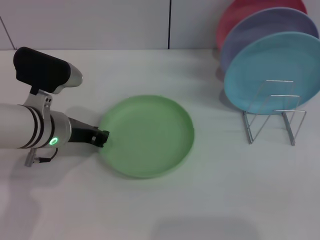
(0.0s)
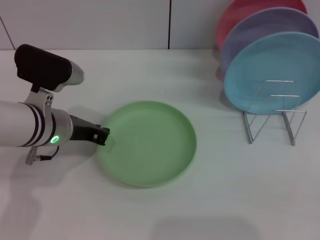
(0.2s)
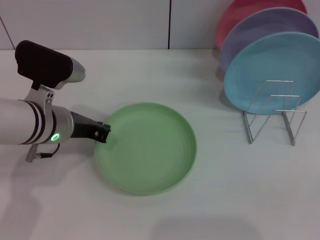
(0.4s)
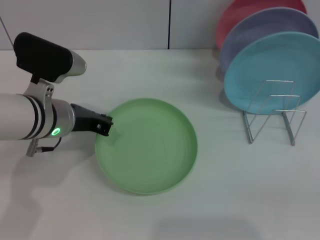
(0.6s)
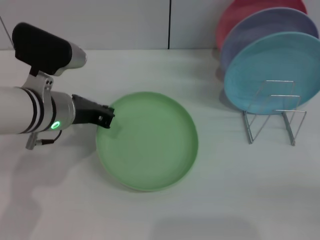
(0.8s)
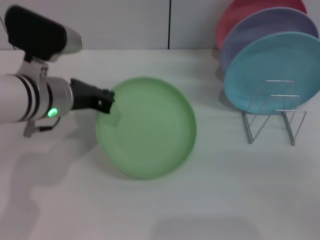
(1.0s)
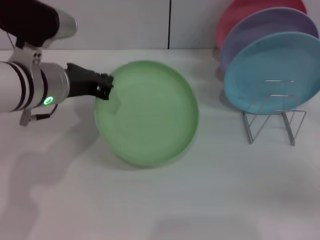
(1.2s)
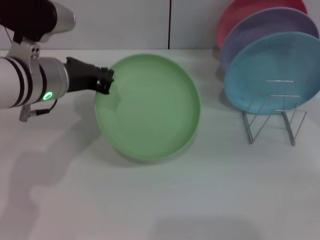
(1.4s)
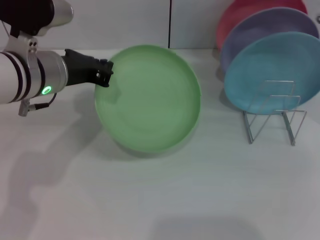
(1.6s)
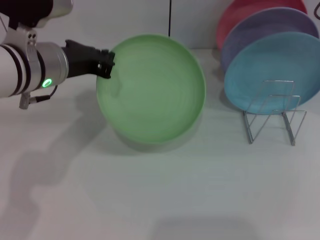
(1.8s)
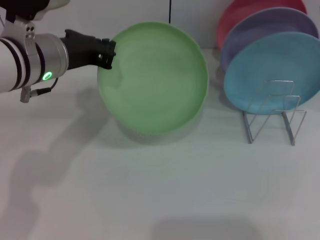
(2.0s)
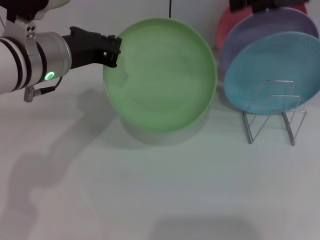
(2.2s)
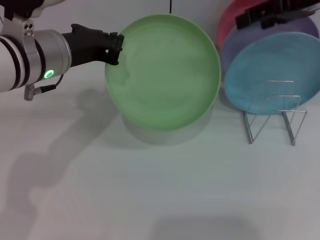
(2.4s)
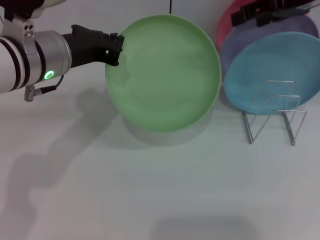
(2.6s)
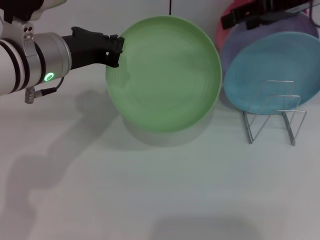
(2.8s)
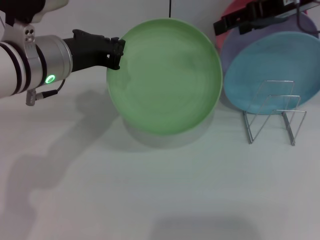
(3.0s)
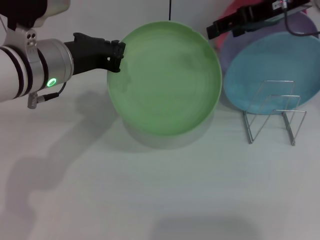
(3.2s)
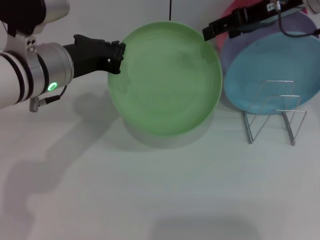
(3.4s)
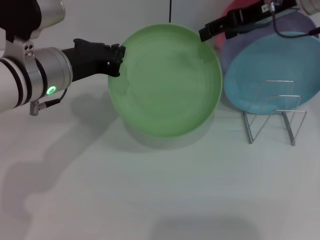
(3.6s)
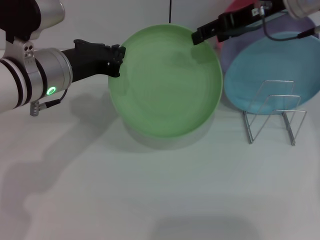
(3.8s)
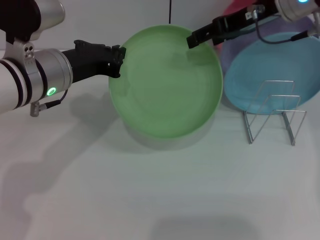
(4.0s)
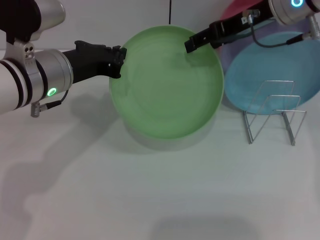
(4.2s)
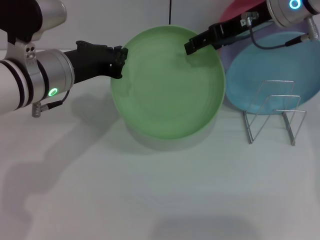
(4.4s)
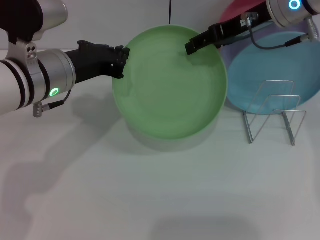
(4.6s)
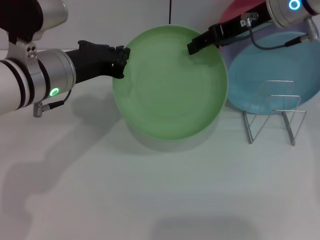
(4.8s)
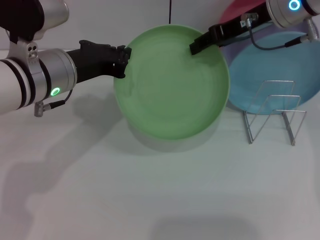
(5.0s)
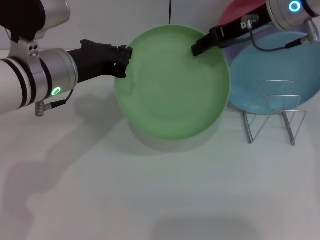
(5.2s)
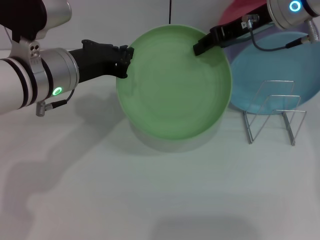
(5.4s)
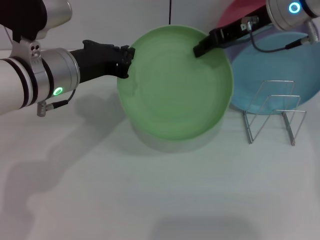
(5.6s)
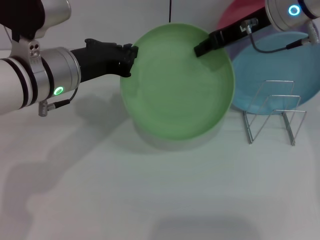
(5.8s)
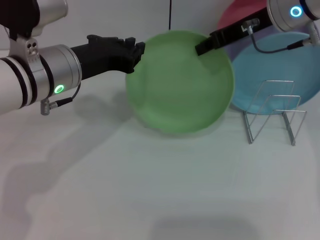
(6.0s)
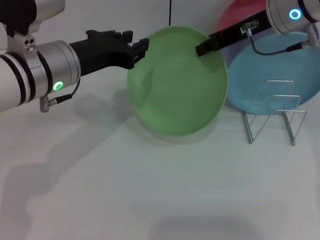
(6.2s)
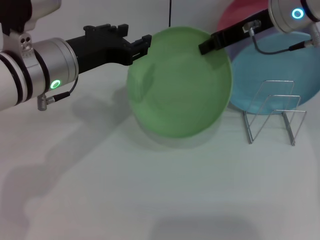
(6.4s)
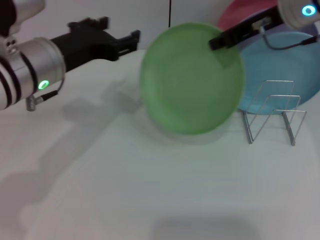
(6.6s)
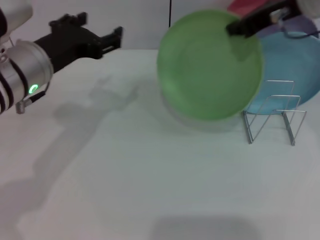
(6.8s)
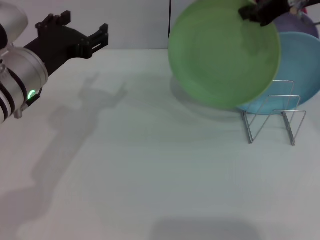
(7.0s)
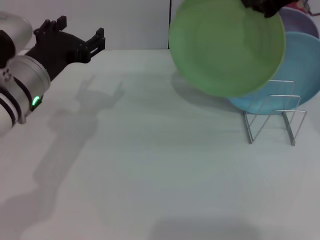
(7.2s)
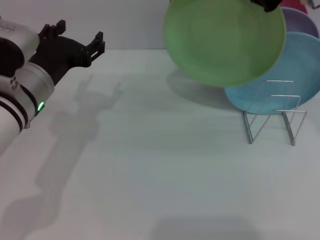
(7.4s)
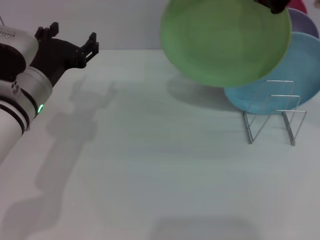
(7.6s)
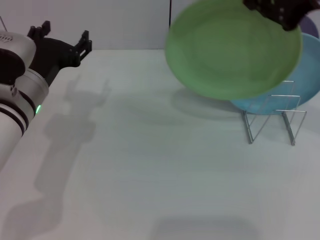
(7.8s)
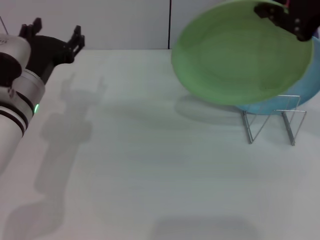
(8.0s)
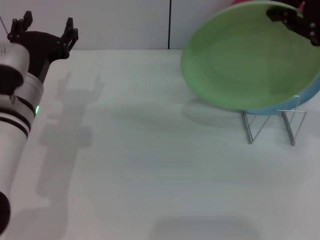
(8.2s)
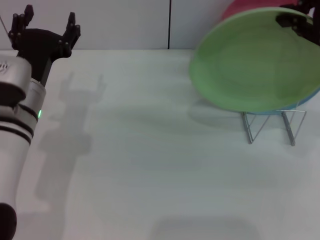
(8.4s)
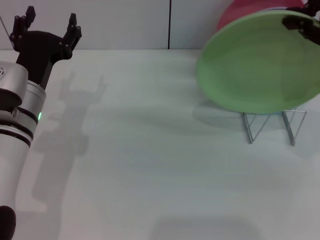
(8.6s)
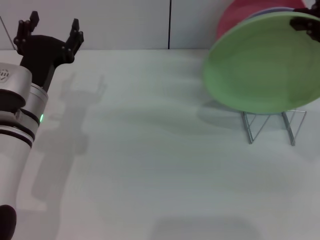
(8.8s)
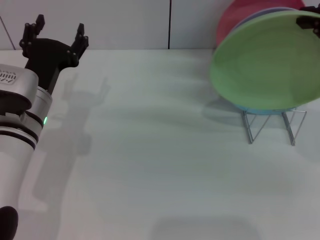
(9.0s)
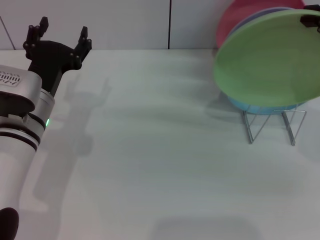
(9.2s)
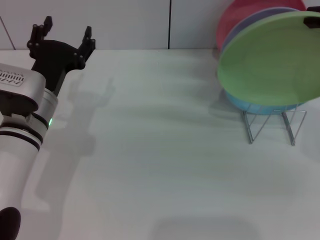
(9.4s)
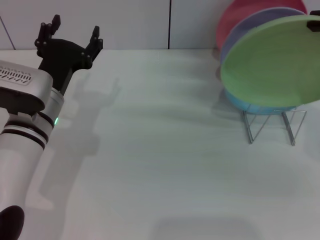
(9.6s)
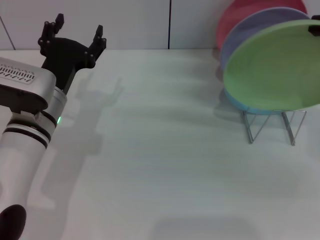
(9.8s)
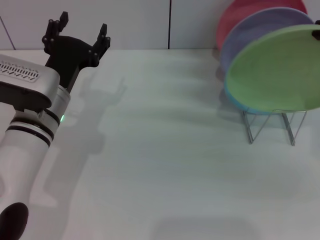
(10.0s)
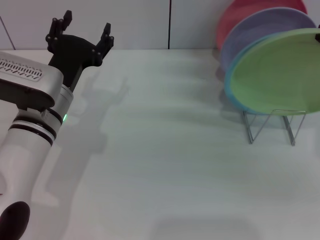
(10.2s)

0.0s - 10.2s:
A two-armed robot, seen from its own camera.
Task of the whole recording: Grip the plate with one hand, pass it to the other, then set it on the shelf.
Step, 1.4s - 6.2s: Pass the plate from the left gripper to the right gripper.
0.0s - 1.4s: The left gripper heads upward, covering approximately 10 cm, and closes up. The right gripper travels forward and upward by some 25 cm.
1.4s - 3.0s: The right gripper travels upward, to the left and forward by about 15 cm.
3.0s - 4.4s: The right gripper ends up roughly 5 cm from where it was.
4.4s - 5.8s: The right gripper closes its fingers.
5.8s - 7.2s: The left gripper opens up; the right gripper shifts some 5 cm upward.
7.2s - 8.8s: The right gripper moves backward and to the right, about 10 cm, while the left gripper shifts roughly 5 cm downward.
8.8s - 10.2s: The right gripper shifts by some 5 cm.

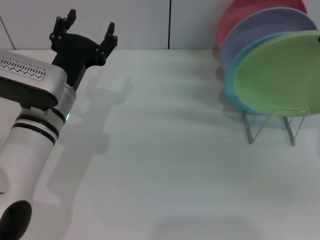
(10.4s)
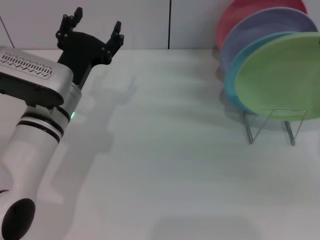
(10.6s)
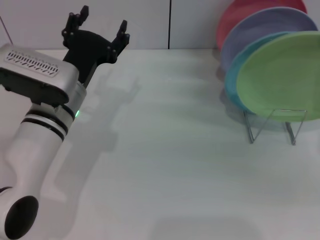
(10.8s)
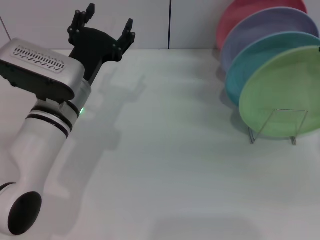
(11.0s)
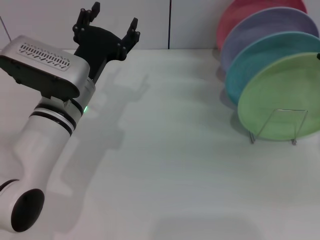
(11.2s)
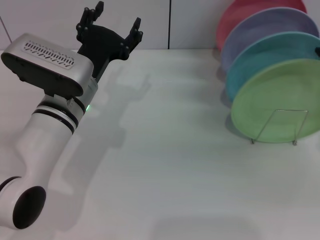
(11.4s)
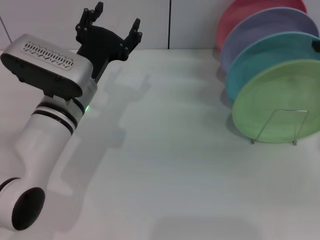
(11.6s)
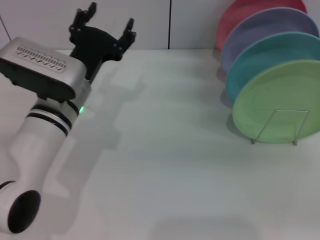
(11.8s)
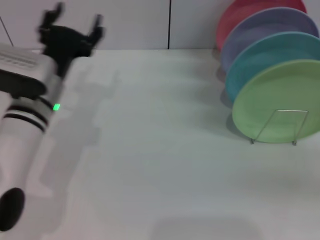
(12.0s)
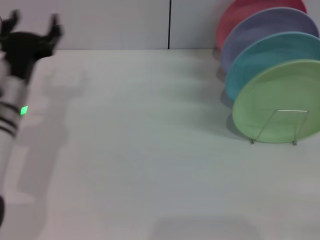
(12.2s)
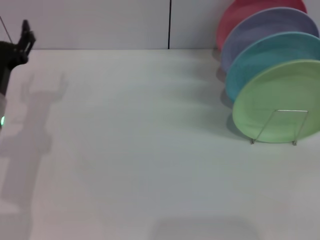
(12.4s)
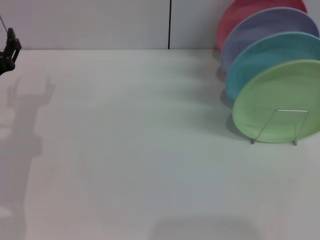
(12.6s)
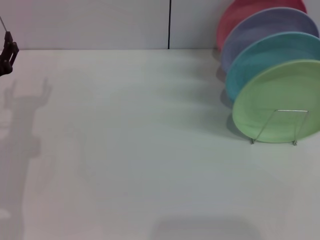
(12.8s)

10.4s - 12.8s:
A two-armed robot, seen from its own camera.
Task of the whole recording: Grip the plate with one hand, pass it to the other, then set it on the shelf.
10.4s - 11.6s: The right gripper opens.
11.6s - 12.8s: The right gripper heads downward, backward and to the right, covering about 30 cm. The left gripper heads to the left, covering some 15 cm.
